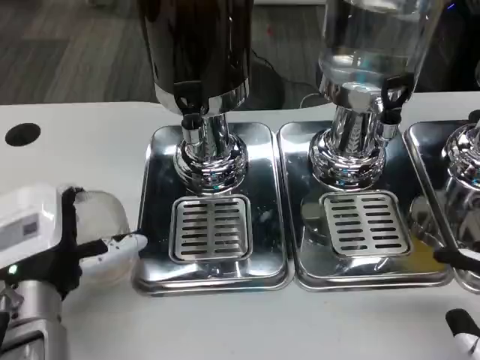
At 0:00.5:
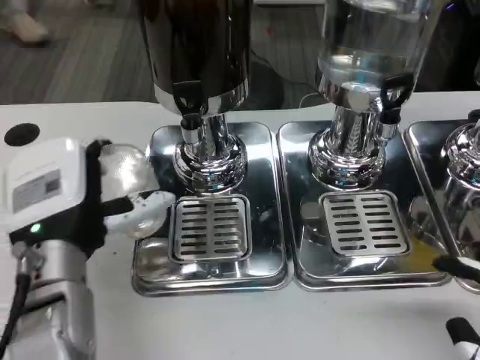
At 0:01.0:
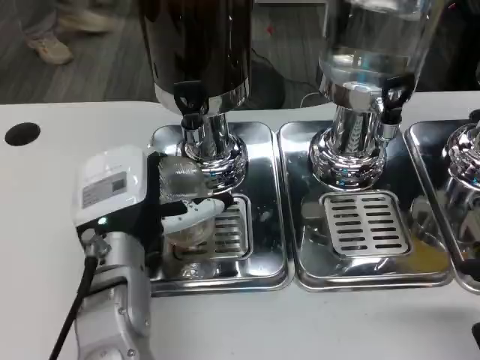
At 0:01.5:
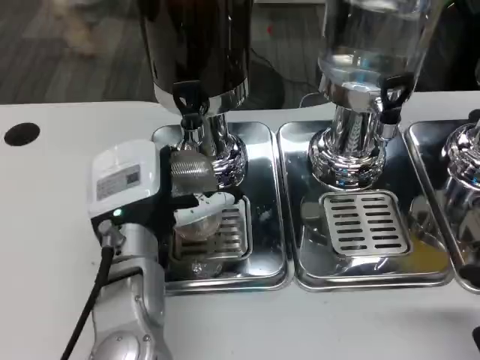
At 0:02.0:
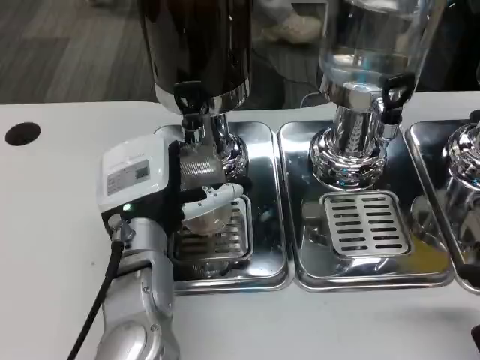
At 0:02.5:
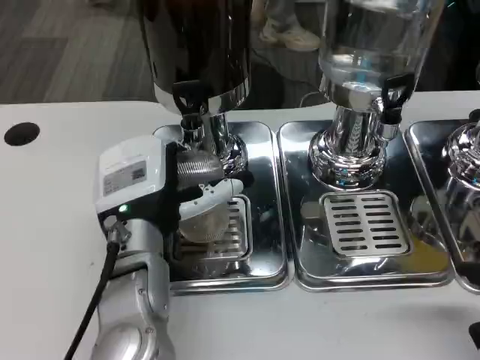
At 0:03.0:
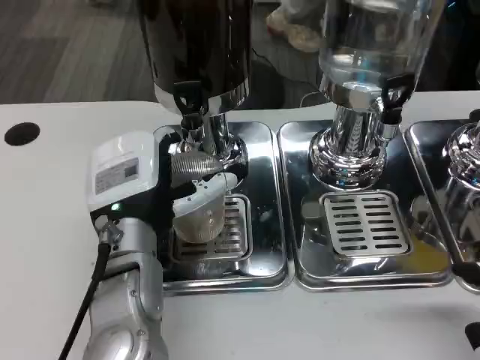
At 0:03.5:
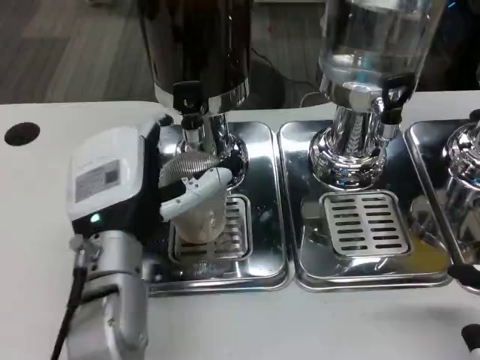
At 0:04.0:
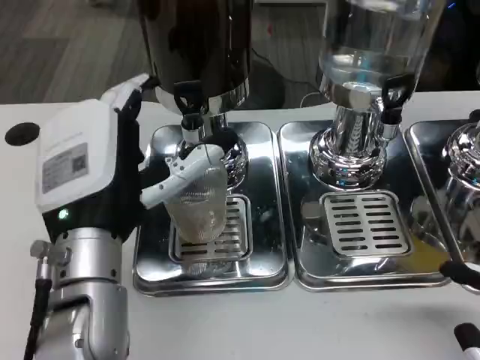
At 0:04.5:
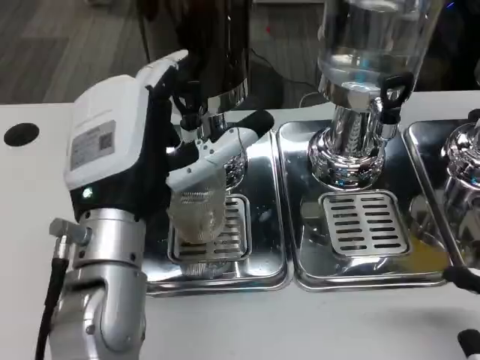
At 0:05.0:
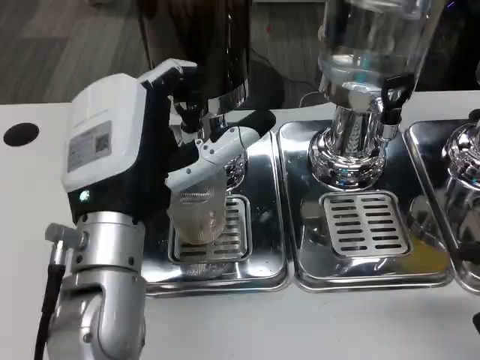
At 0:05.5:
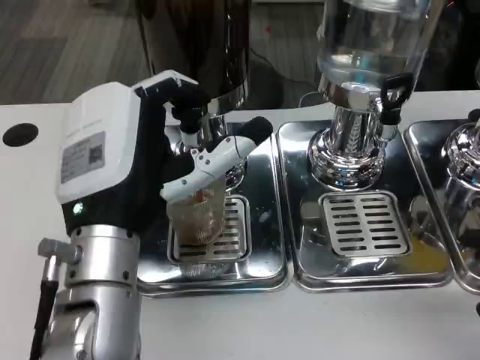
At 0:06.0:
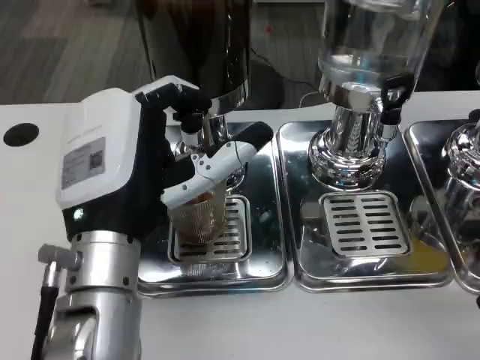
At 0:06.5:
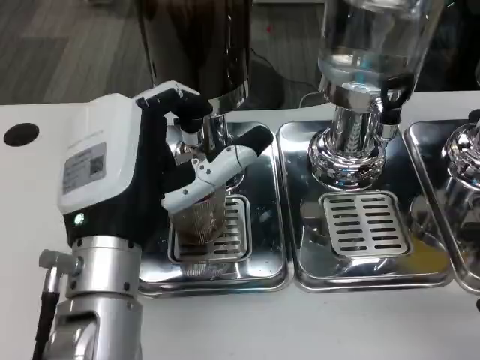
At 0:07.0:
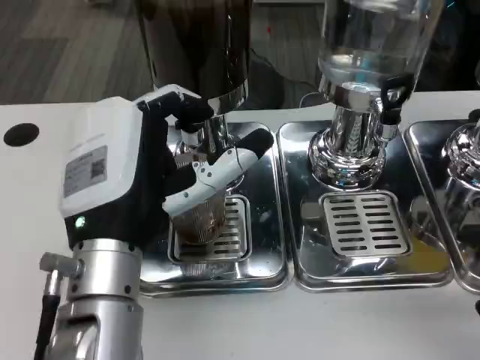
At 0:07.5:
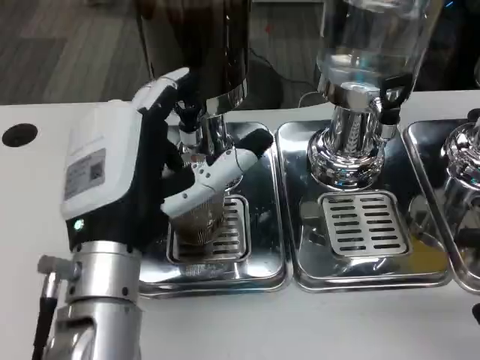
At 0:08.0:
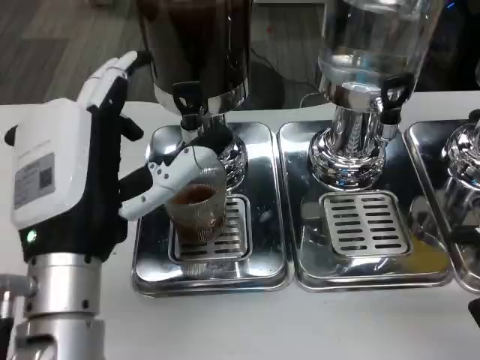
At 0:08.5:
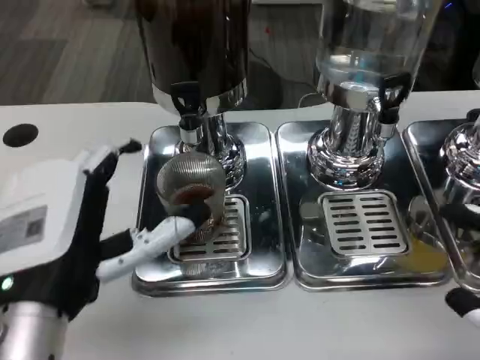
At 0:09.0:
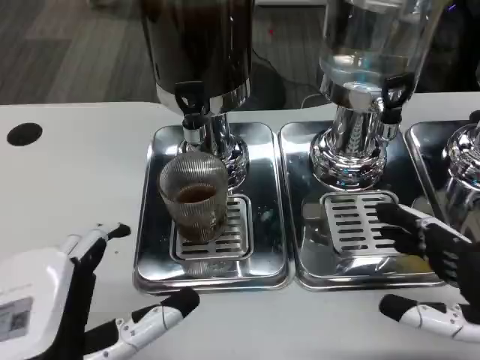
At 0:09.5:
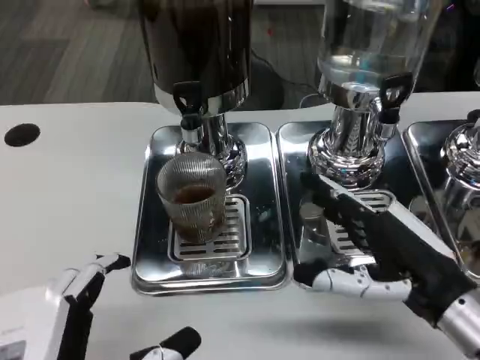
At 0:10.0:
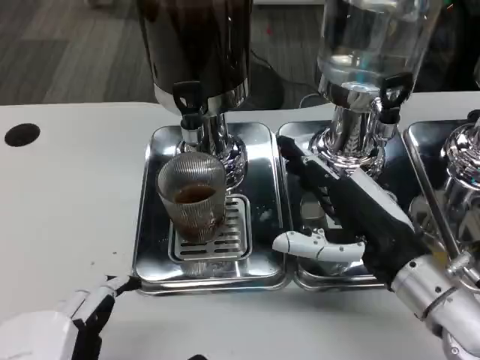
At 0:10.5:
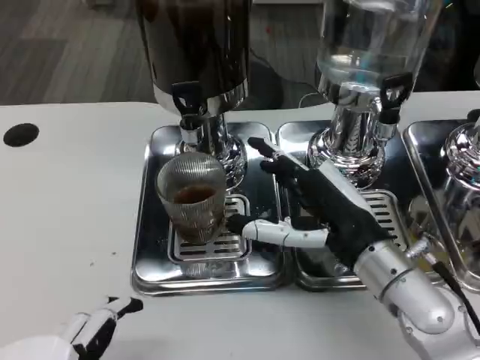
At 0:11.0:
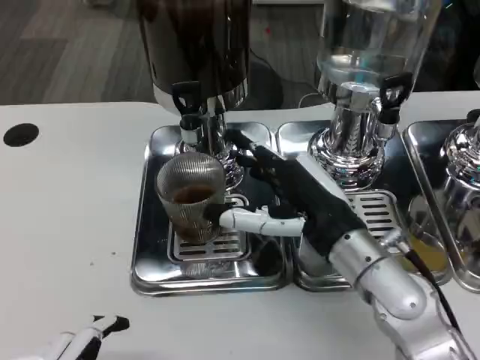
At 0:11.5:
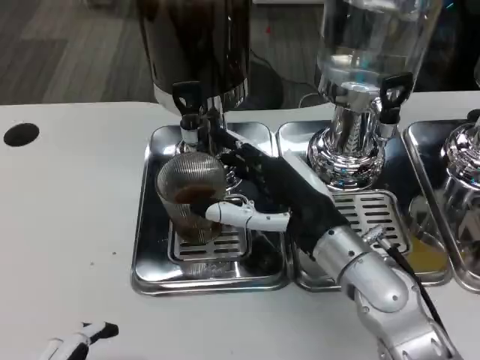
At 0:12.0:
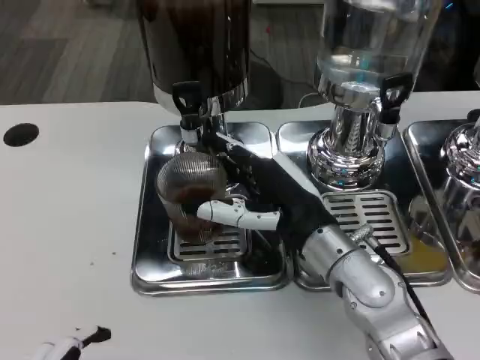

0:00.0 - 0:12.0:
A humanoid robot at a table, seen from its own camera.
Task of the whole recording: Grasp the cup under the faucet to collect the drink, then remove the cup.
0:00.0 - 0:02.0: The left hand goes roughly 10 cm to the right and forward.
0:02.0 - 0:04.0: The left hand moves backward, roughly 5 cm.
0:08.0 - 0:10.0: The right hand is displaced forward and to the left by about 20 cm. Meanwhile the left hand travels backward by approximately 15 cm.
0:10.0 - 0:12.0: The right hand moves to the left, about 10 cm.

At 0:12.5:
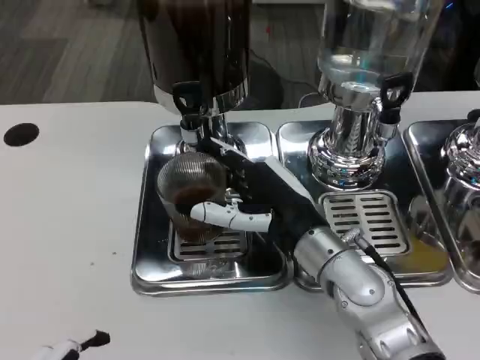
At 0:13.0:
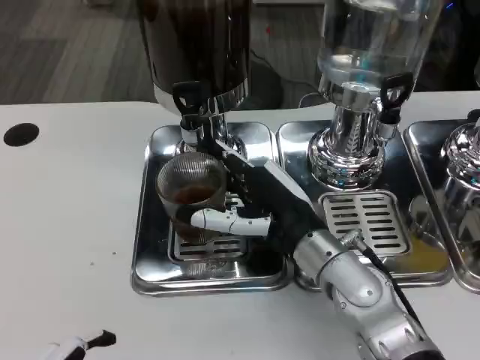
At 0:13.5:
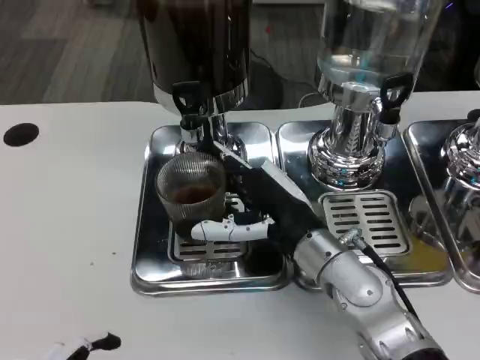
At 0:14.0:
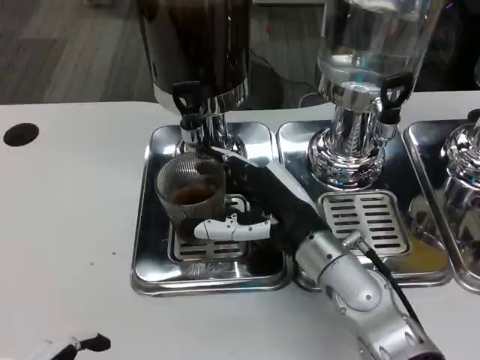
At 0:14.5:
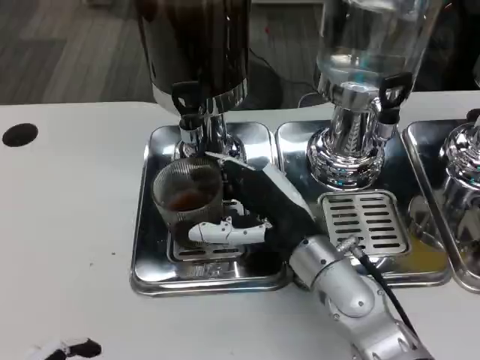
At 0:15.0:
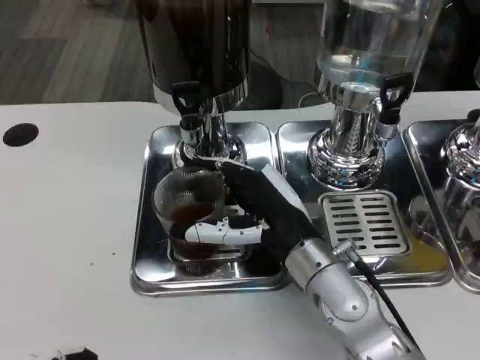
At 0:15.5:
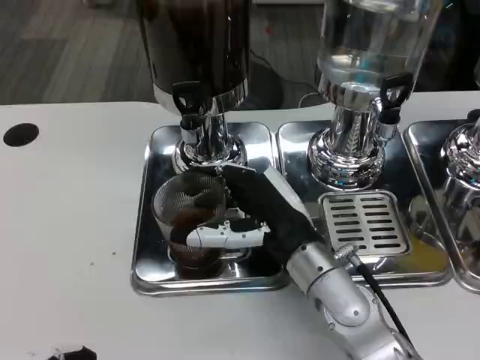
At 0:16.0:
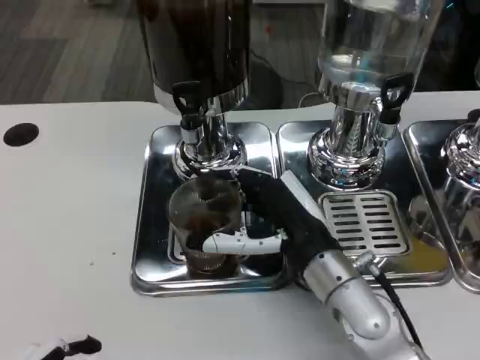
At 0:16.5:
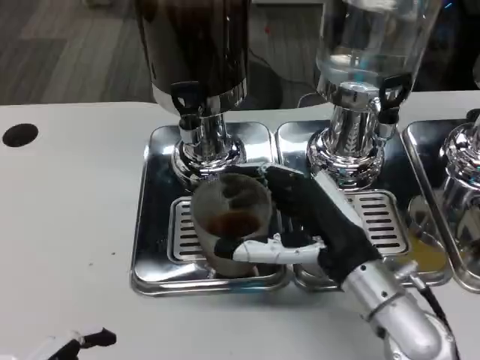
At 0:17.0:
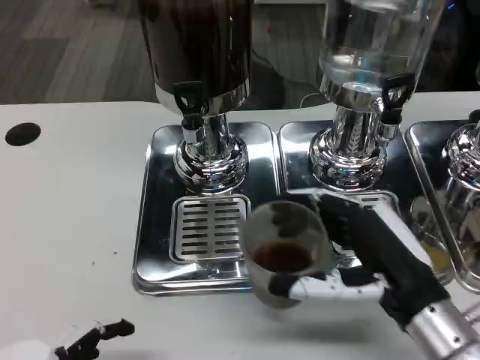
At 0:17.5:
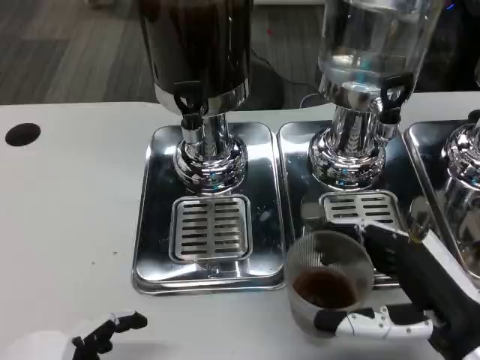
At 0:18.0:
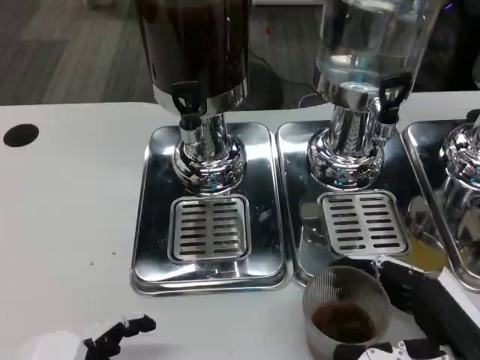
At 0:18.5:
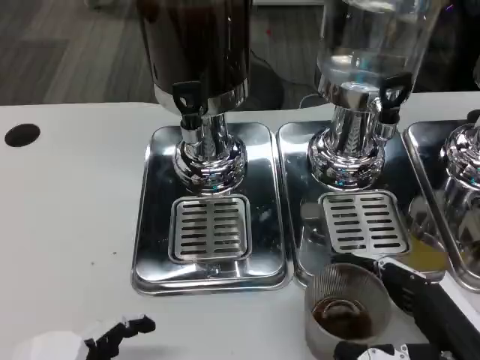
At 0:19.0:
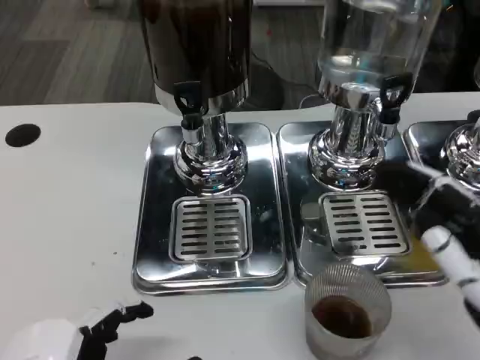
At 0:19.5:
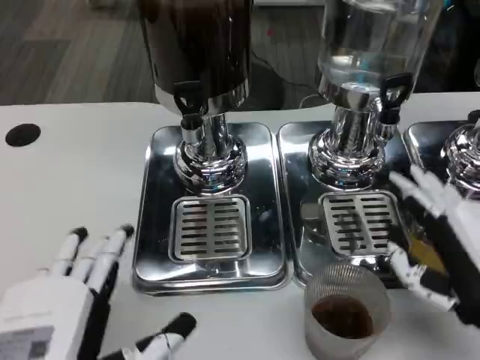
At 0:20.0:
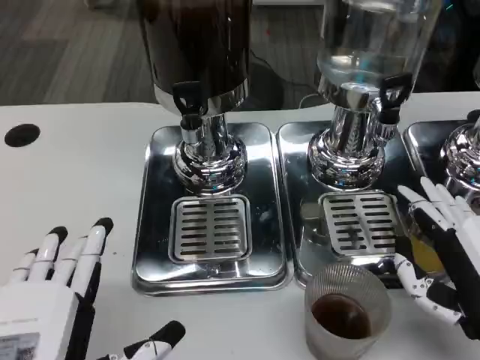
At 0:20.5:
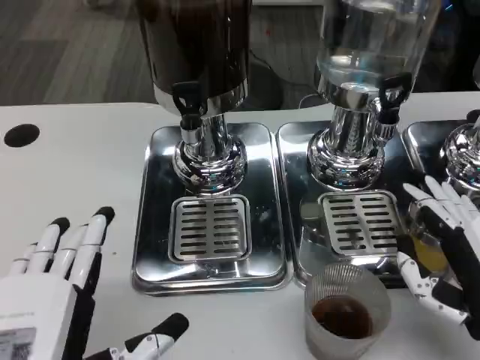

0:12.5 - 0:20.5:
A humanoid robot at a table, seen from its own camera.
Task of the whole recording: Grasp the cup under the faucet to collect the drink, then remove the cup.
0:12.5 - 0:14.5: The hands make only small movements.
0:14.5 - 0:16.5: The right hand ends up roughly 5 cm from where it was.
0:16.5 - 0:18.5: The right hand heads to the right and backward, covering approximately 15 cm.

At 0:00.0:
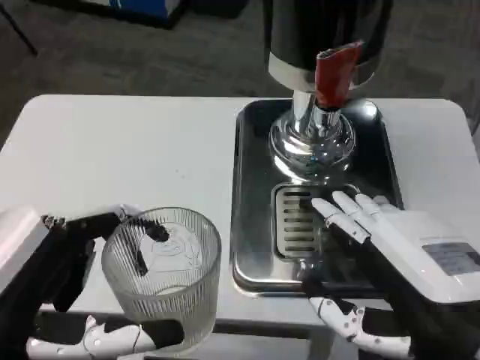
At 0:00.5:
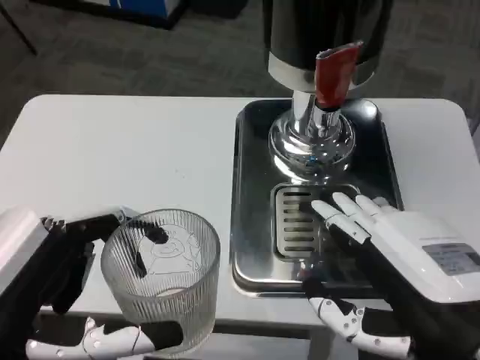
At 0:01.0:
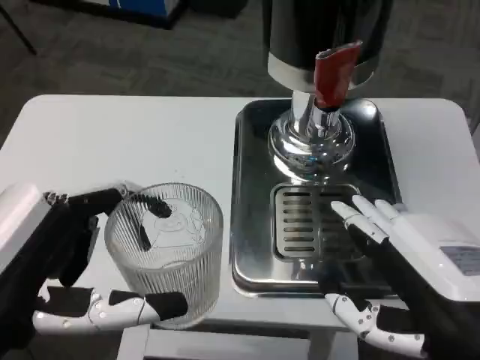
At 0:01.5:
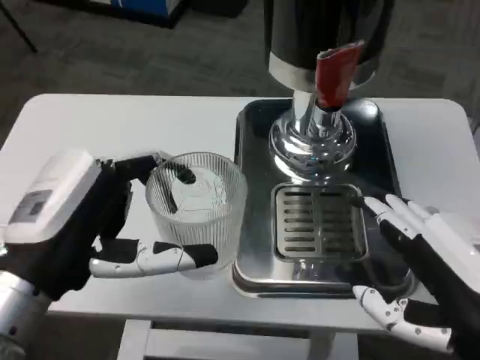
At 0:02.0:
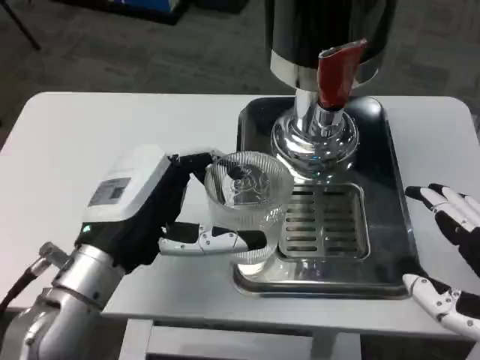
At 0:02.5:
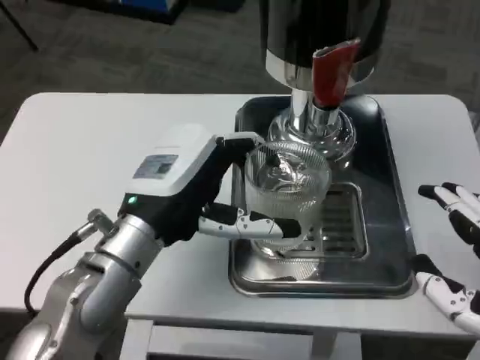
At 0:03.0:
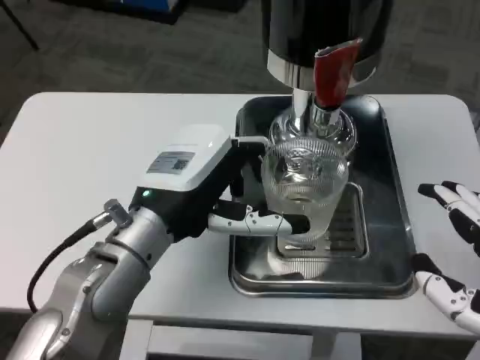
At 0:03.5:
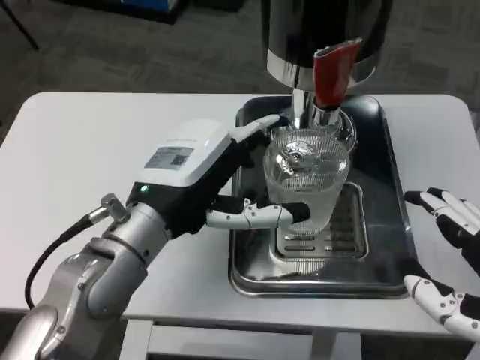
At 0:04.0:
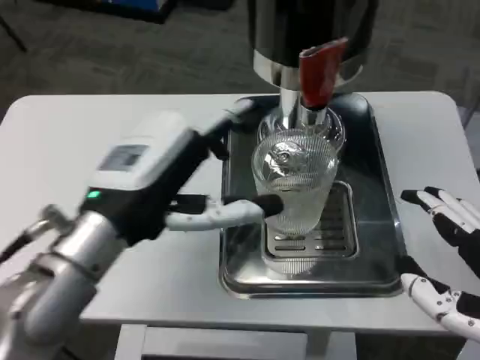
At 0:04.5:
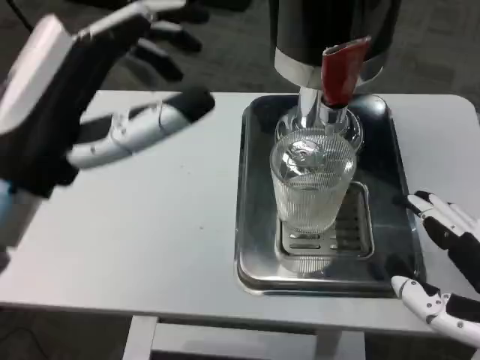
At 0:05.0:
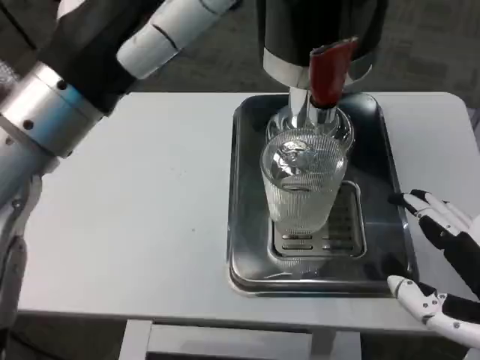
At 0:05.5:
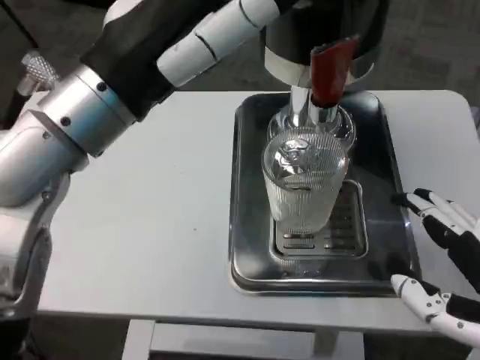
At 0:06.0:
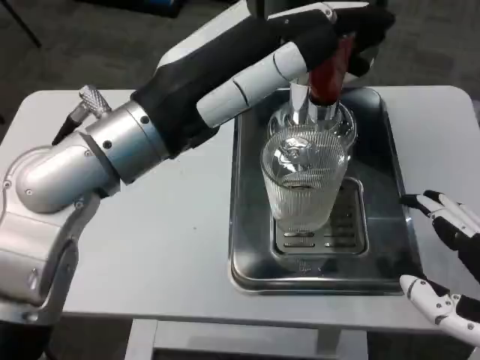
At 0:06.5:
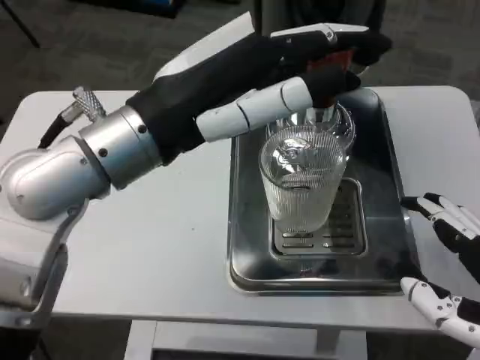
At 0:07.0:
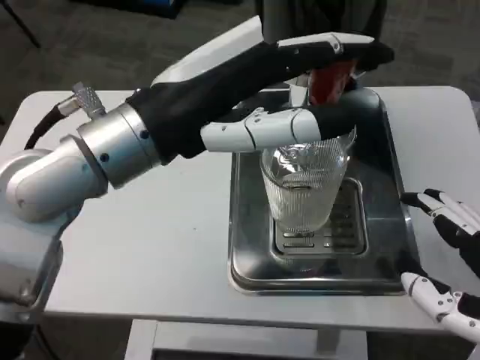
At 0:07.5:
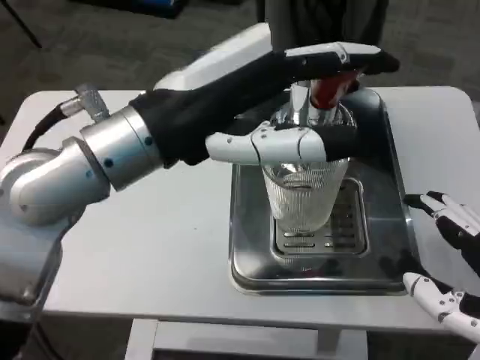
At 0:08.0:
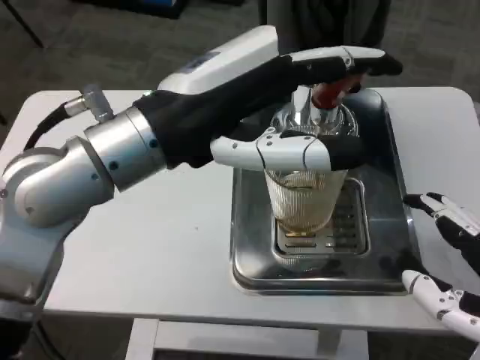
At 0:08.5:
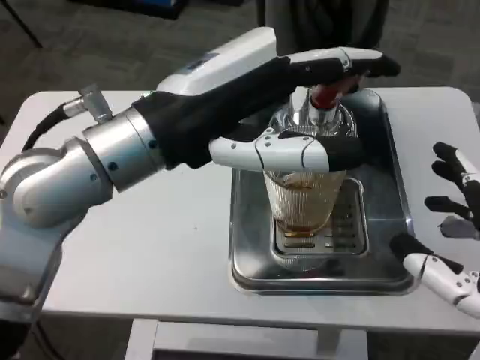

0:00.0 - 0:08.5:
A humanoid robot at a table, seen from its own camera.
Task of the whole recording: Grasp the cup under the faucet to collect the drink, then remove the cup.
0:00.0 - 0:02.0: The left hand shifts some 15 cm forward and to the right.
0:04.0 - 0:06.5: The left hand goes some 10 cm upward.
